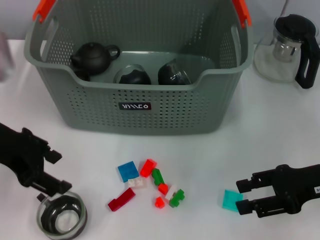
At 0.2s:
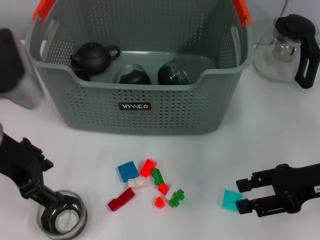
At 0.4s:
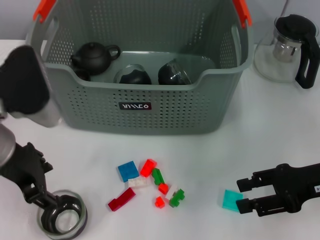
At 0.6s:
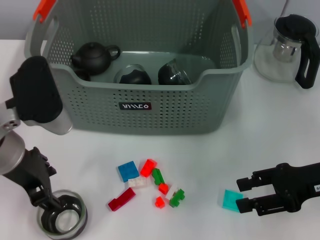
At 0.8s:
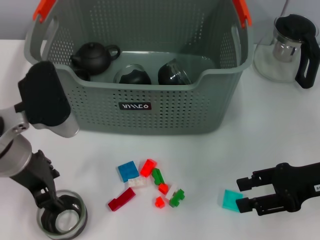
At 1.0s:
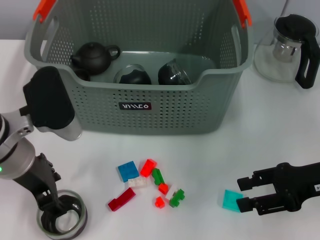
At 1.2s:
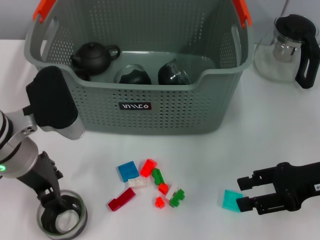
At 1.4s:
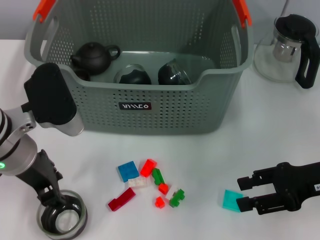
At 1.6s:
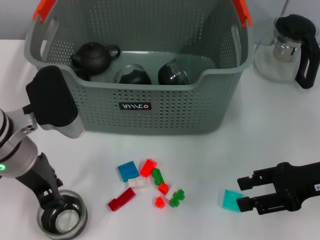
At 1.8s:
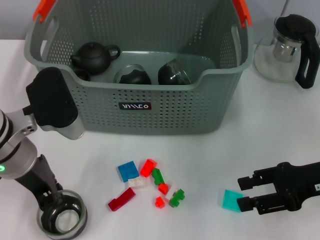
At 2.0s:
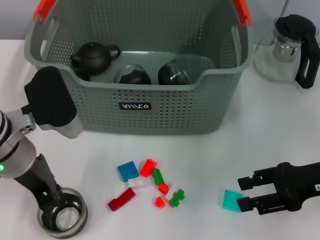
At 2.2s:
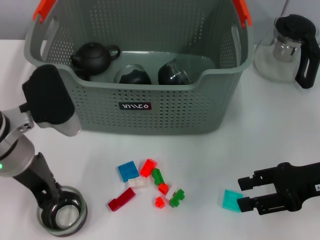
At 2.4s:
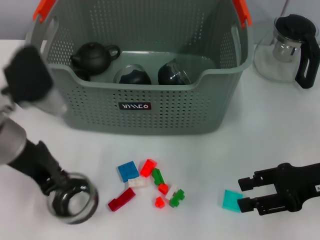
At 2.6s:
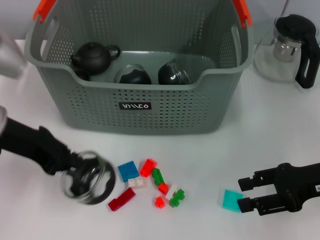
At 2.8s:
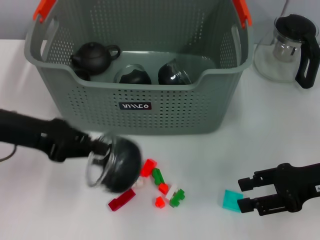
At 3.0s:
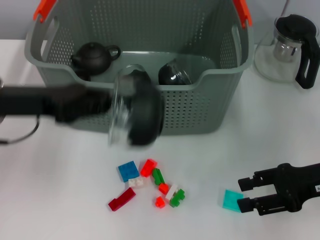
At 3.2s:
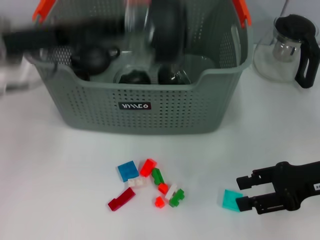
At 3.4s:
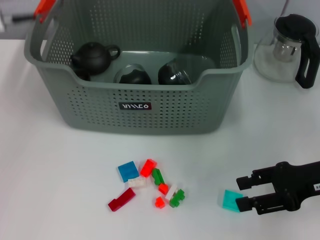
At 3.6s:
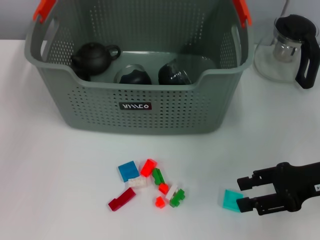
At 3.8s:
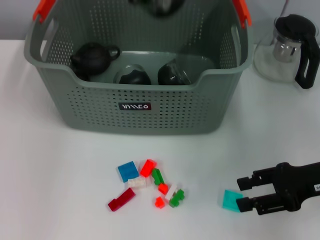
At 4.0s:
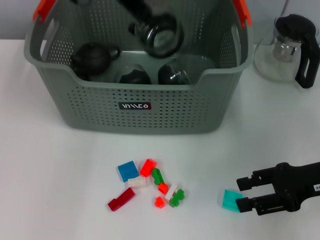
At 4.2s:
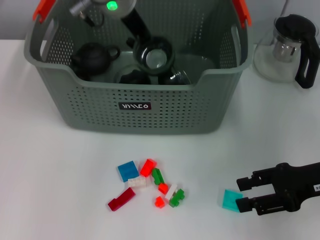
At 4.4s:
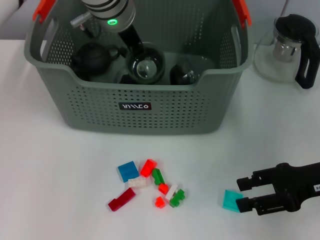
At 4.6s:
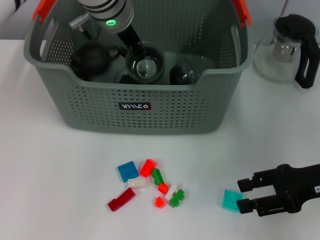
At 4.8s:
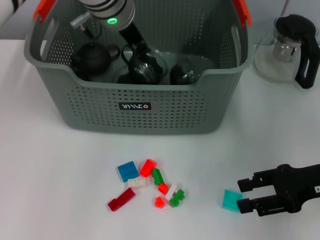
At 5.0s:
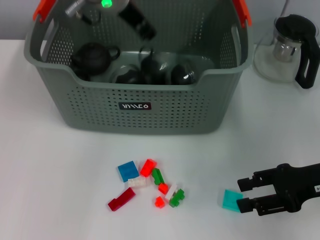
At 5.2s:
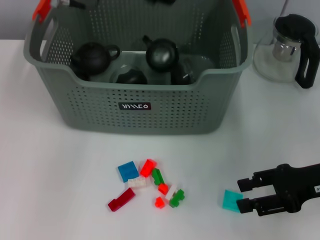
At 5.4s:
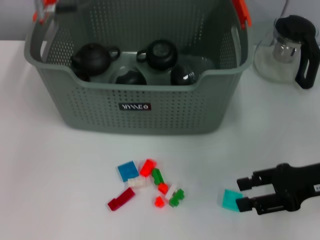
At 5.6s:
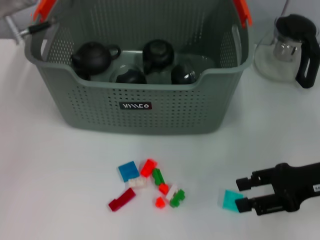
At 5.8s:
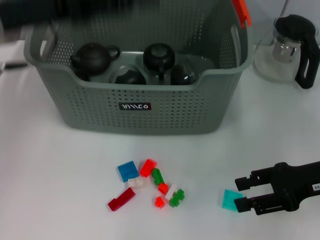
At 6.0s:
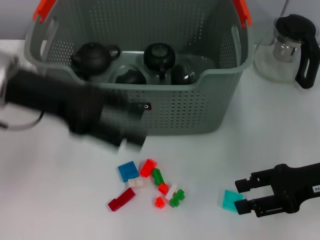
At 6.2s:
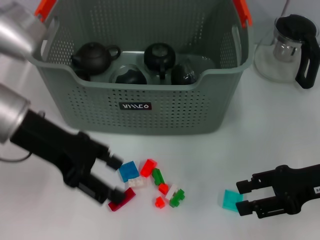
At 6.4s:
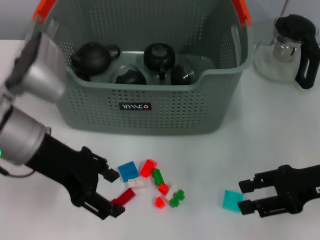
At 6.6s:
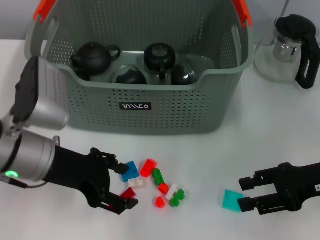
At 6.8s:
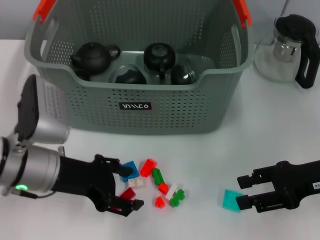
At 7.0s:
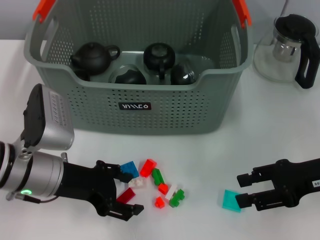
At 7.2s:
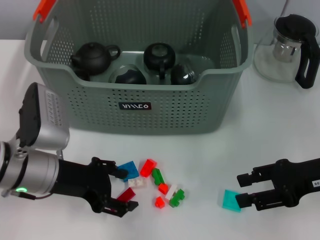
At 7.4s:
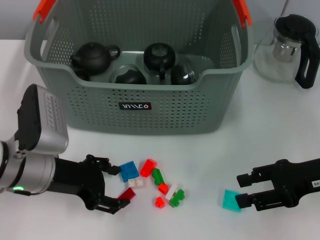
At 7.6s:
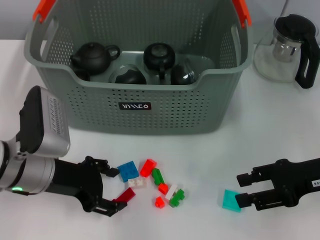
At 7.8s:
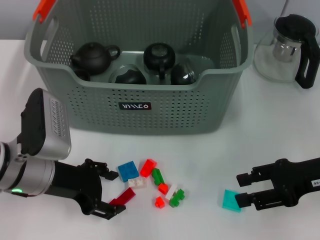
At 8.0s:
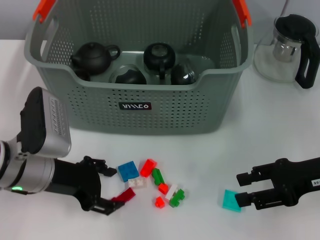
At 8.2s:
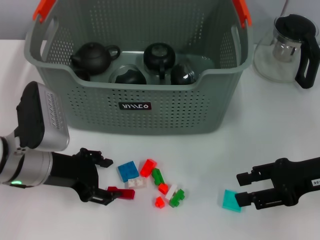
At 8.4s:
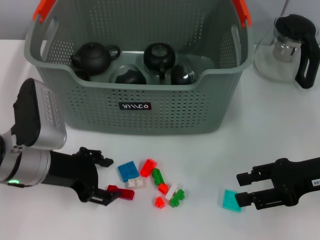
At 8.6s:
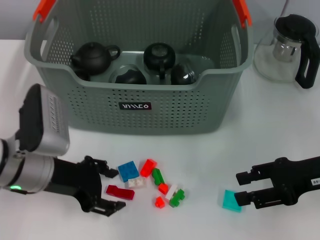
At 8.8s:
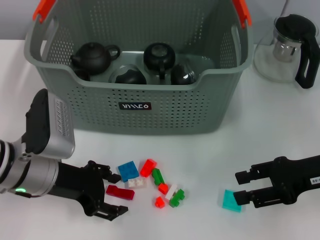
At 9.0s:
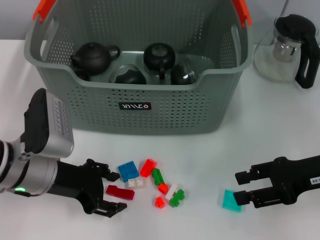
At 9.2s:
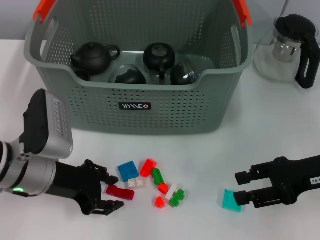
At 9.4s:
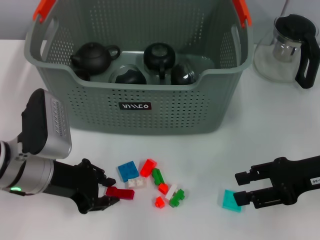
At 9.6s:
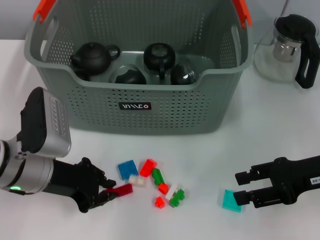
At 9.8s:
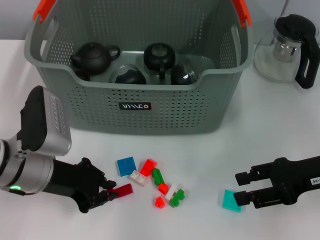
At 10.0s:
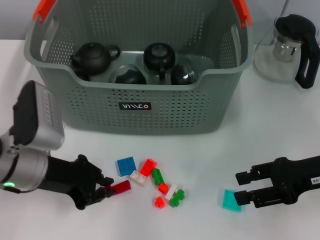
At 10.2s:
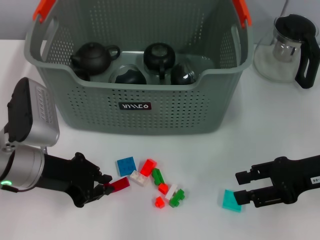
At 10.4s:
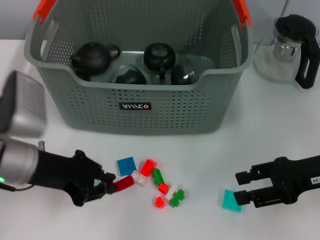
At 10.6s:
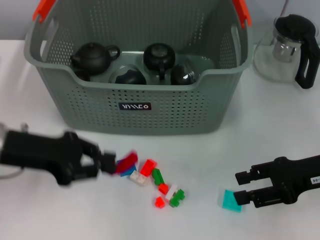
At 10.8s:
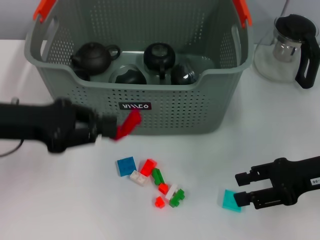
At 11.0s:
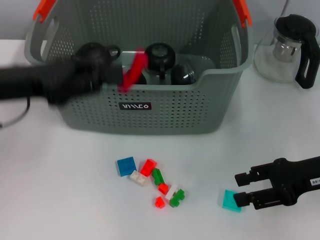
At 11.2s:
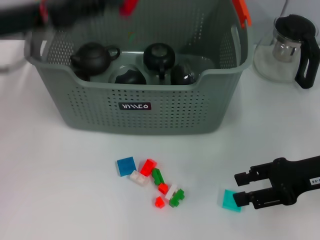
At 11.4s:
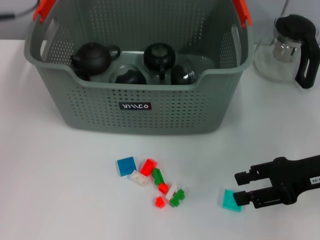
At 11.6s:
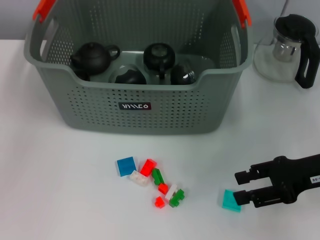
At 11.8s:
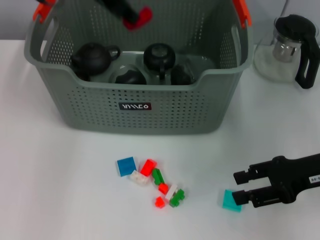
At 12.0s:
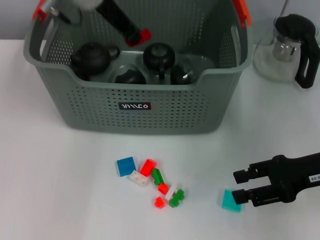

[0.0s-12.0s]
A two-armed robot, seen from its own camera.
Task of the whole recording: pick up the teacup on the table and place it into the storage bin, pick up the block on the table and place it into the storage bin.
Step, 0.0s to 2.2s: Grasp the cup with left gripper.
Step, 2.4s to 4.8s: Place the cup in the storage box with left gripper.
Step, 5.0s to 9.6s: Grasp the red block with left gripper.
0.0s to 1.6s: The left gripper heads downward and to the right, covering about 10 cm.
1.6s to 3.0s: The left gripper moves to the left, roughly 5 cm, and closes its fingers.
3.0s to 4.4s: The left gripper goes roughly 25 cm to the right and forward.
4.4s to 6.0s: The left gripper is displaced to the left and backward by roughly 20 cm, and opens.
6.0s to 7.6s: The left gripper moves downward, approximately 15 cm.
7.6s to 9.0s: The two grippers keep their place.
9.0s to 10.4s: The left gripper closes.
10.4s to 12.0s: The left gripper travels forward, upward and to the right by approximately 25 cm.

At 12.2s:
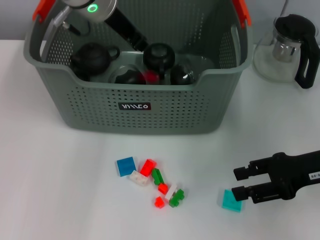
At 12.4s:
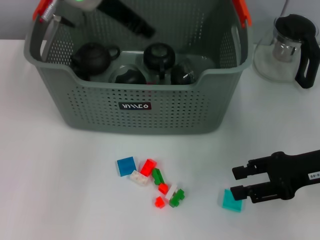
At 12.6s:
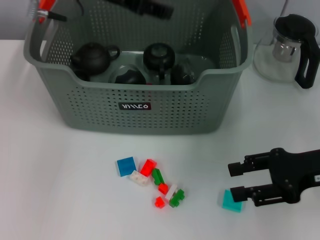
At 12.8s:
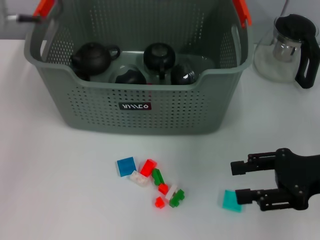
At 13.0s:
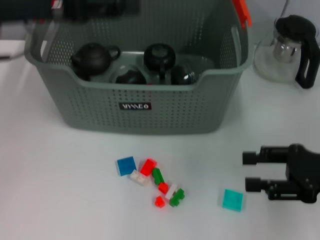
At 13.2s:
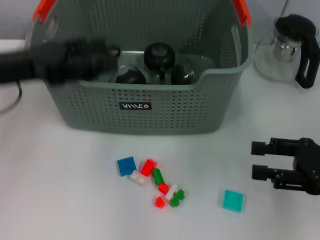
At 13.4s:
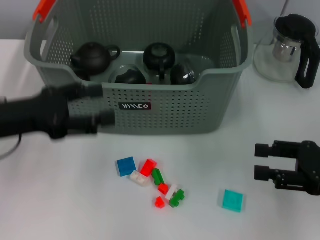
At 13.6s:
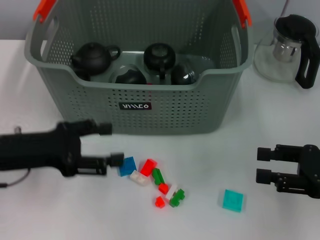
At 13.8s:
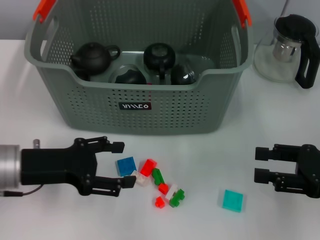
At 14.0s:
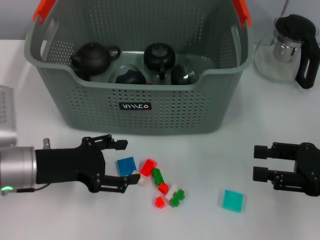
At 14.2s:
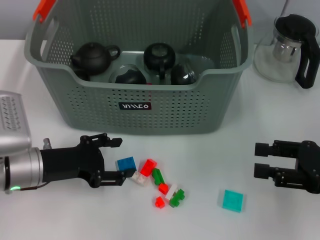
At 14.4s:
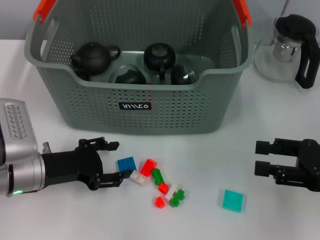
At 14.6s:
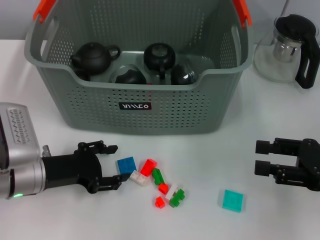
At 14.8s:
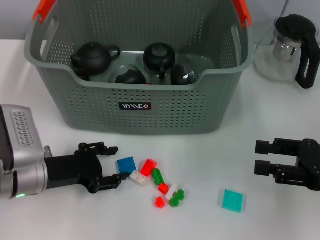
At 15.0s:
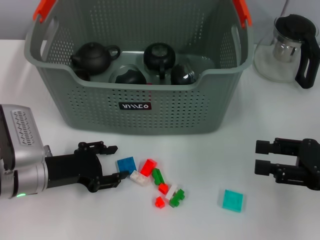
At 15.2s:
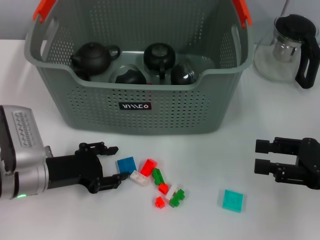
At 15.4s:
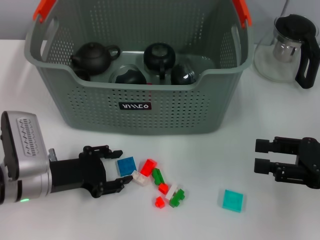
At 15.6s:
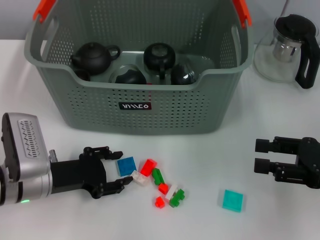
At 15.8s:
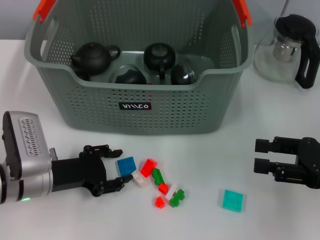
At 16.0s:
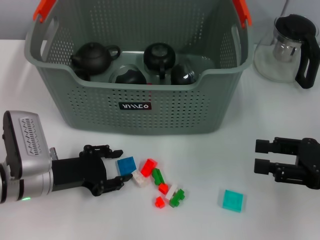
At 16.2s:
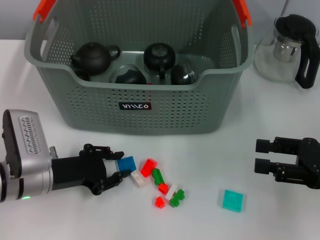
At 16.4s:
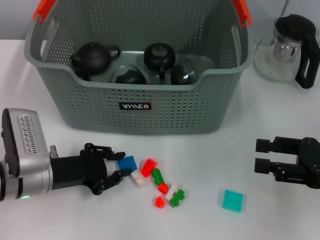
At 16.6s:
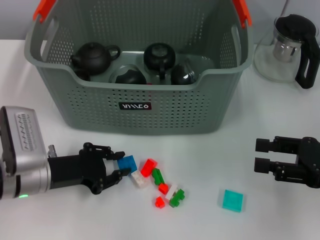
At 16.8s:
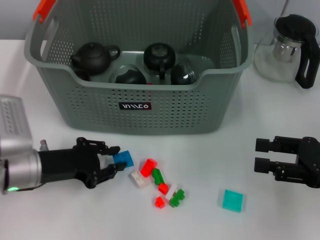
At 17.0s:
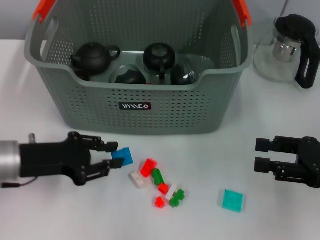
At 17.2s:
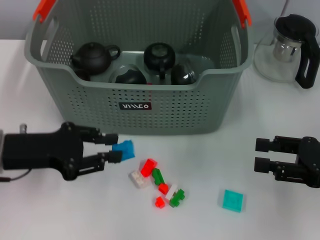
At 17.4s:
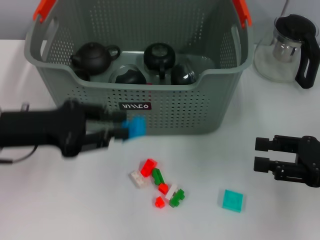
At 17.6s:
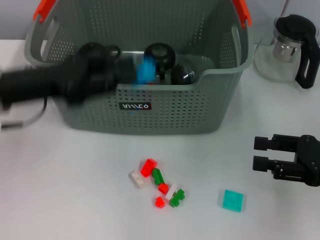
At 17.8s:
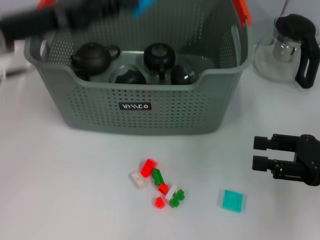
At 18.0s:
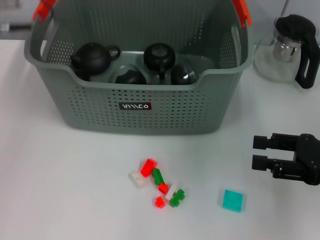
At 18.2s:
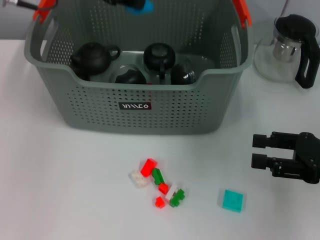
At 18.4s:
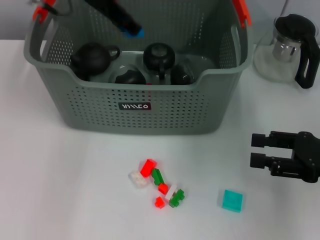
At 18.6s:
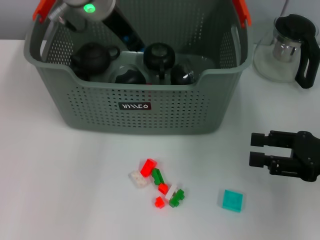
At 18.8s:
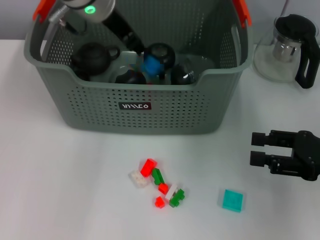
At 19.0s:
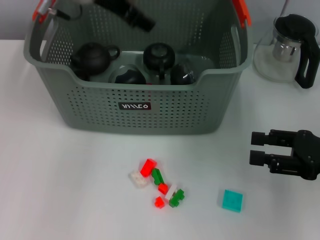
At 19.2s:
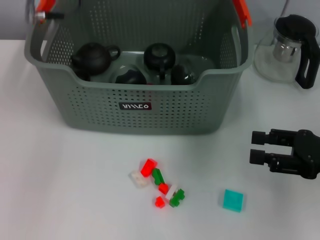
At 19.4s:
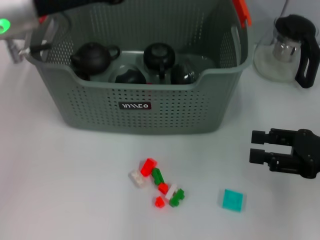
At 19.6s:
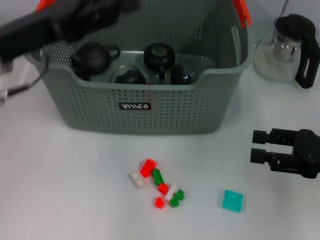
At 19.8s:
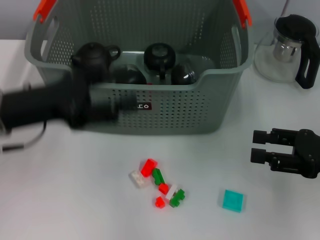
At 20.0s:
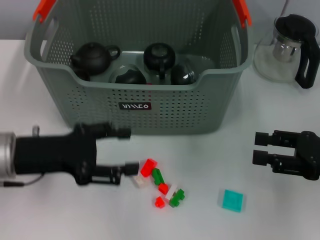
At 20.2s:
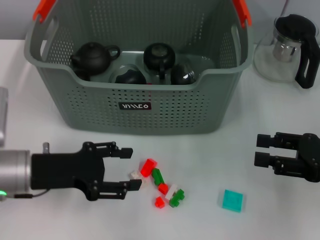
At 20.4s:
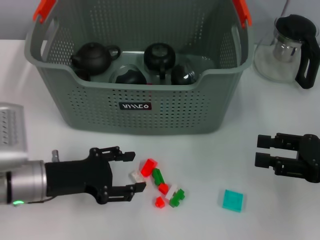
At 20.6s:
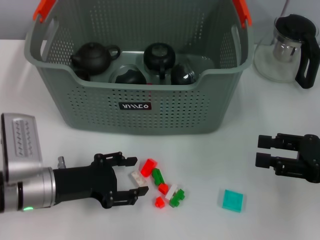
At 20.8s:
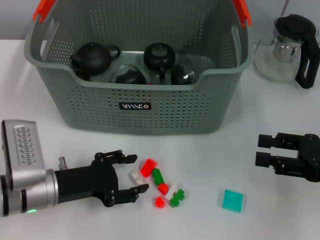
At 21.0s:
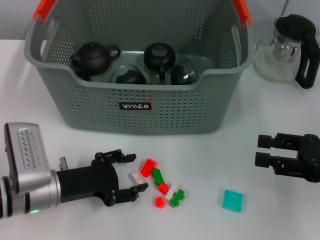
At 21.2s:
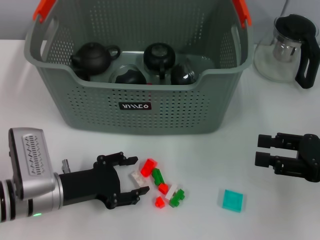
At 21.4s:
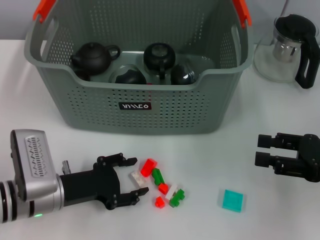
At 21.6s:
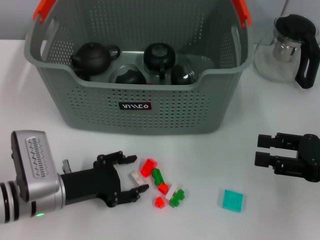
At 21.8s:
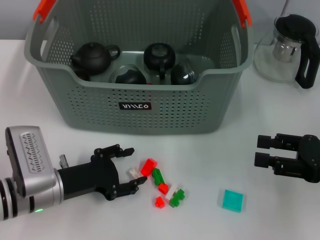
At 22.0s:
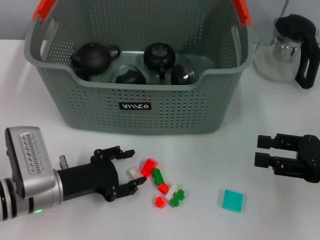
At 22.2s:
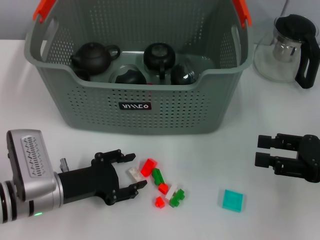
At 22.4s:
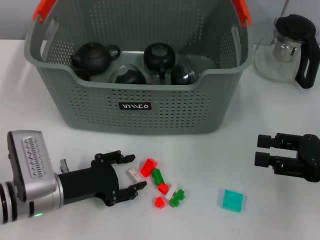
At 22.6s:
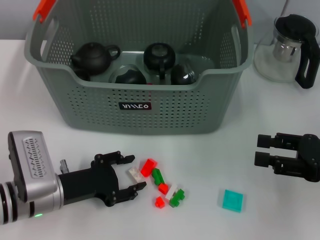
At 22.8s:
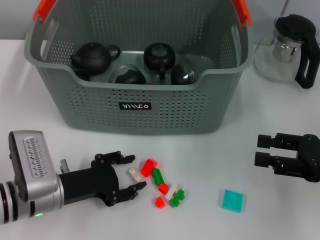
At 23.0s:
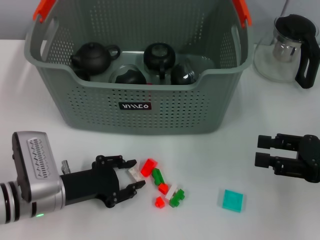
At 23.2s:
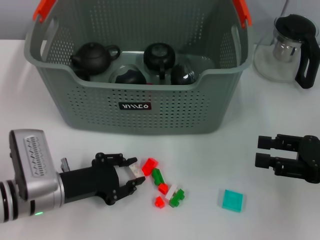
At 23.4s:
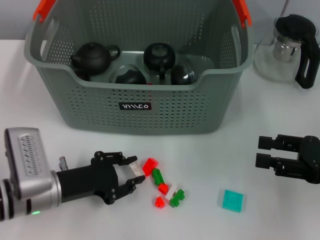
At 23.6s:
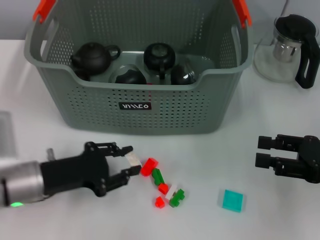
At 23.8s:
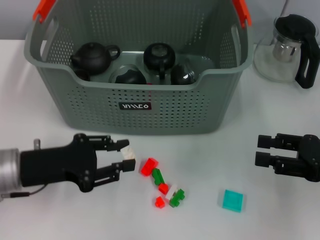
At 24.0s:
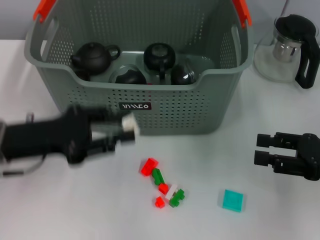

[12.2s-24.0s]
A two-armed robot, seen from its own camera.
Task of the whole recording: pick up the teacup on the table and place it into the storage bin, pick up the block on the table and place it into the storage bin.
Step, 12.4s to 16.4s: Grasp the dark blue block with left gripper.
Step, 16.6s to 18.8s: Place the dark blue block in the storage box with left gripper.
Step, 19.0s to 23.0s: Grasp the white block with left gripper.
12.2s to 13.6s: The right gripper changes place by approximately 5 cm, while the left gripper heads backward, to the left and downward, covering roughly 25 cm, and opens.
13.6s to 15.2s: The left gripper travels downward by some 10 cm.
15.2s to 16.6s: The left gripper closes its fingers.
16.6s to 18.2s: The left gripper heads upward and forward, covering about 30 cm.
18.2s to 19.6s: The left gripper travels backward and downward by approximately 15 cm, moves roughly 10 cm to the right and comes back, and opens.
19.6s to 21.0s: The left gripper is displaced downward by about 20 cm.
21.0s to 22.6s: Both grippers stay about where they are.
22.6s to 24.0s: The left gripper heads upward, covering some 10 cm.
